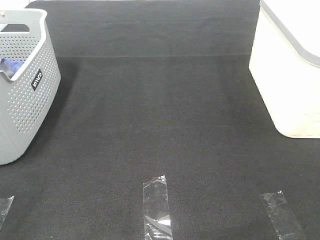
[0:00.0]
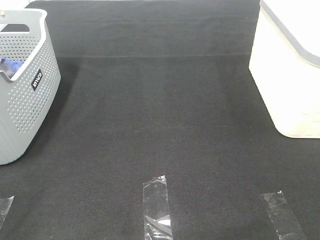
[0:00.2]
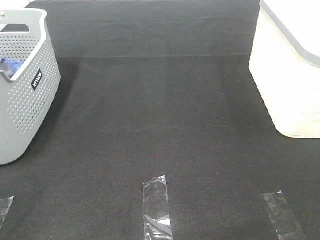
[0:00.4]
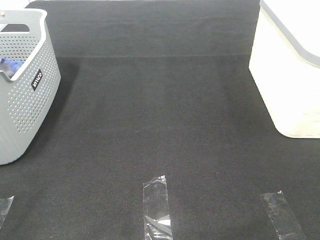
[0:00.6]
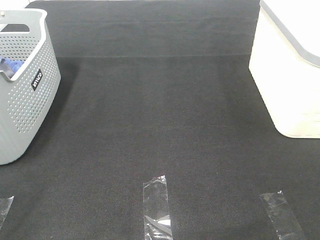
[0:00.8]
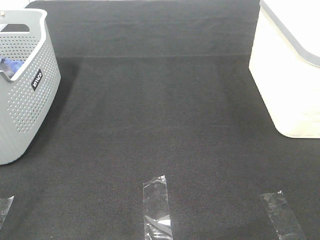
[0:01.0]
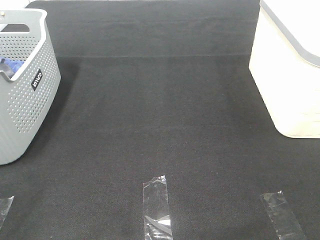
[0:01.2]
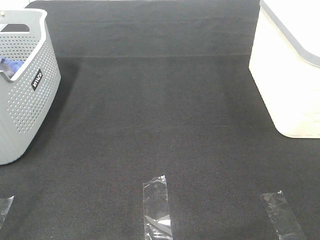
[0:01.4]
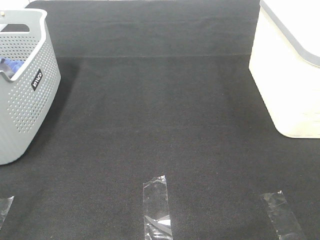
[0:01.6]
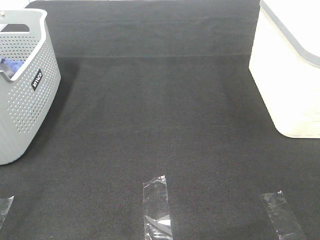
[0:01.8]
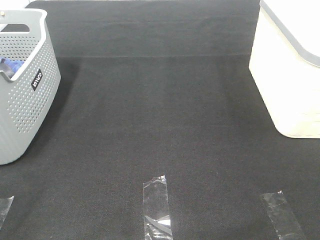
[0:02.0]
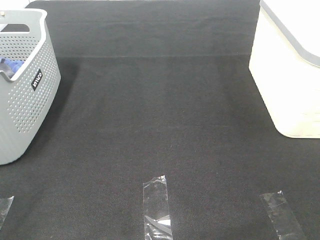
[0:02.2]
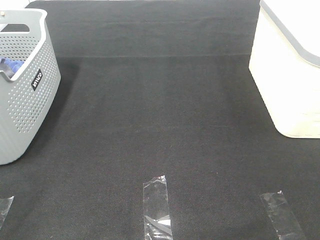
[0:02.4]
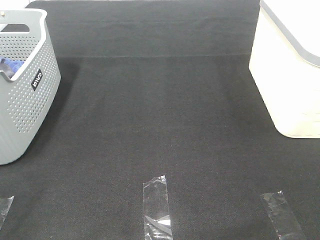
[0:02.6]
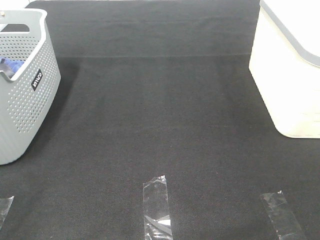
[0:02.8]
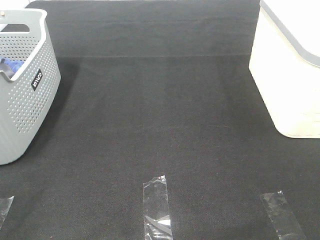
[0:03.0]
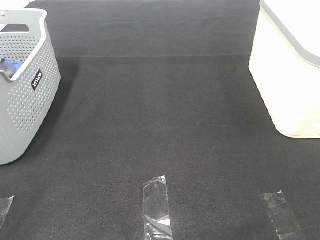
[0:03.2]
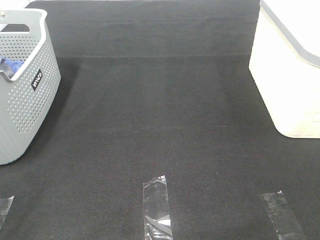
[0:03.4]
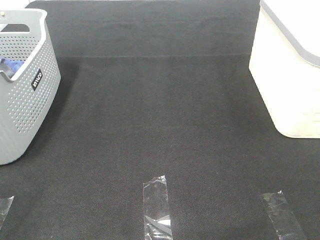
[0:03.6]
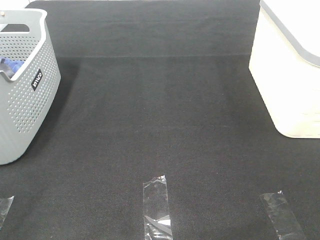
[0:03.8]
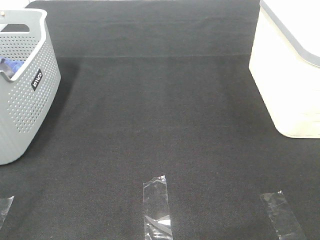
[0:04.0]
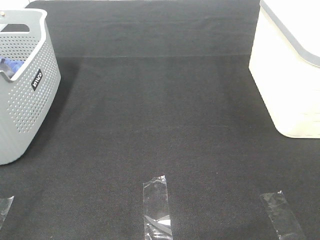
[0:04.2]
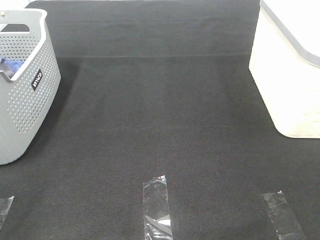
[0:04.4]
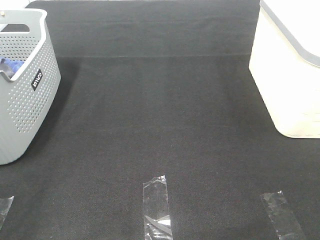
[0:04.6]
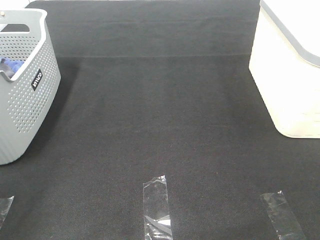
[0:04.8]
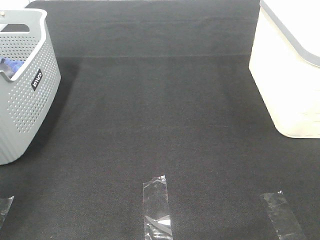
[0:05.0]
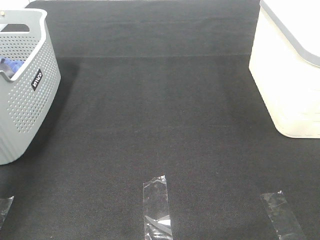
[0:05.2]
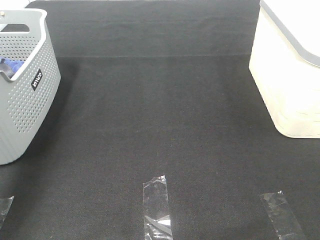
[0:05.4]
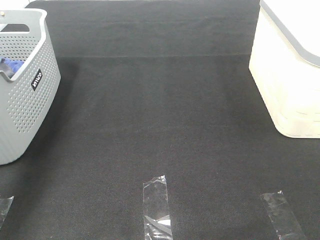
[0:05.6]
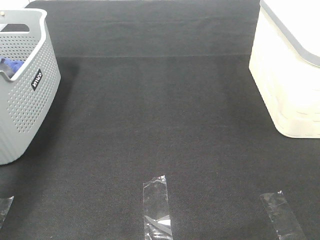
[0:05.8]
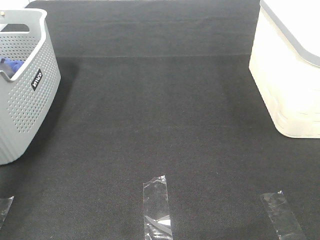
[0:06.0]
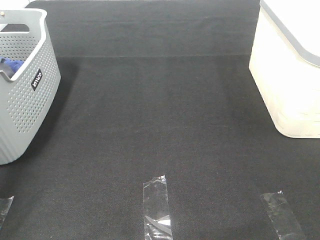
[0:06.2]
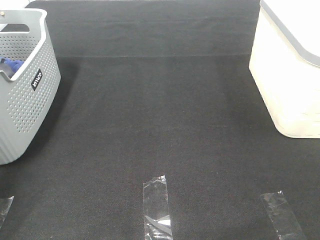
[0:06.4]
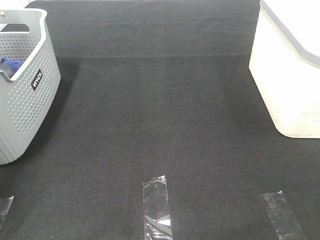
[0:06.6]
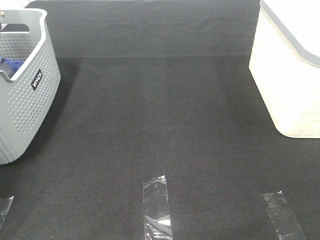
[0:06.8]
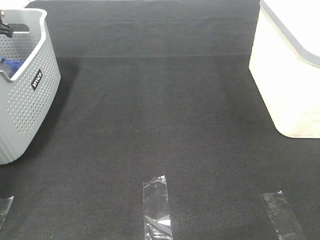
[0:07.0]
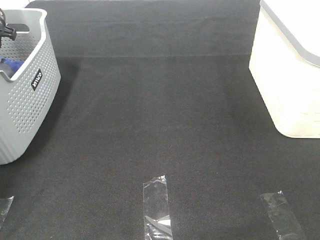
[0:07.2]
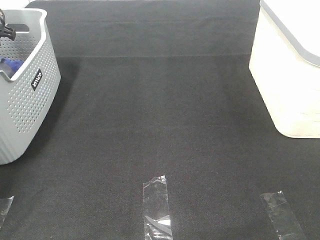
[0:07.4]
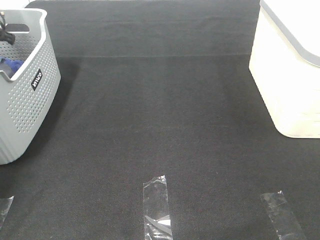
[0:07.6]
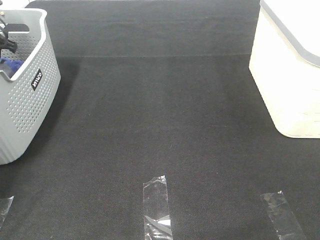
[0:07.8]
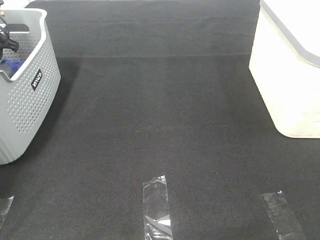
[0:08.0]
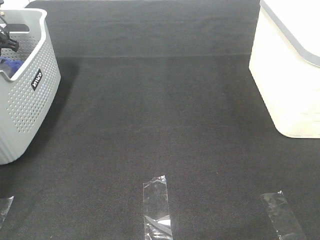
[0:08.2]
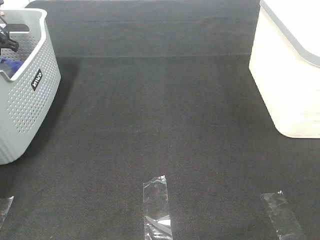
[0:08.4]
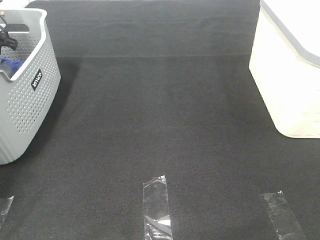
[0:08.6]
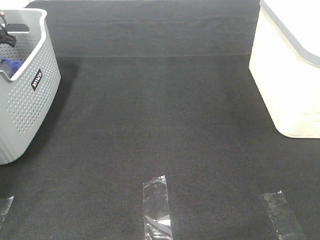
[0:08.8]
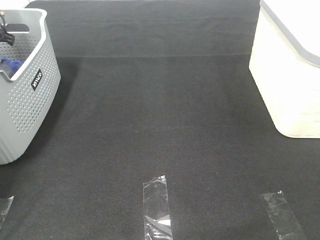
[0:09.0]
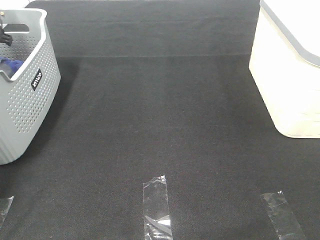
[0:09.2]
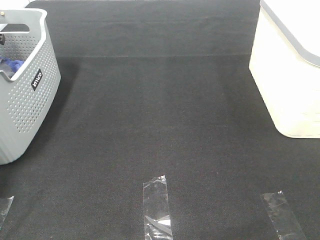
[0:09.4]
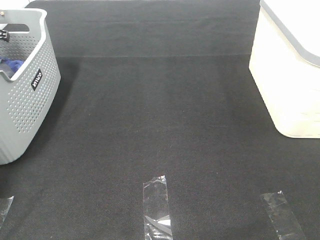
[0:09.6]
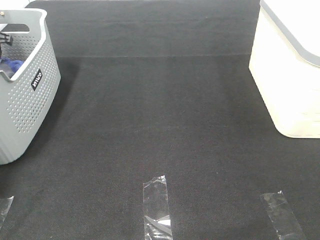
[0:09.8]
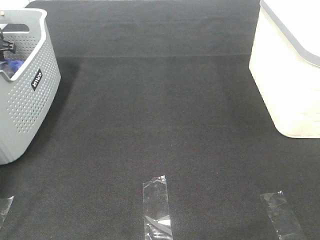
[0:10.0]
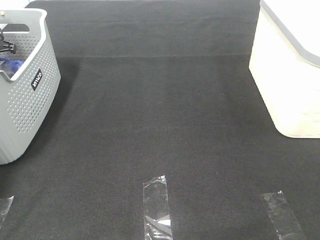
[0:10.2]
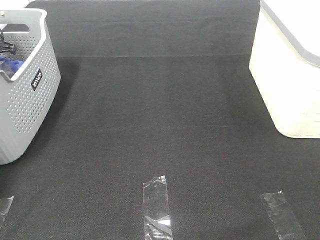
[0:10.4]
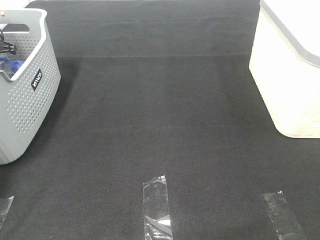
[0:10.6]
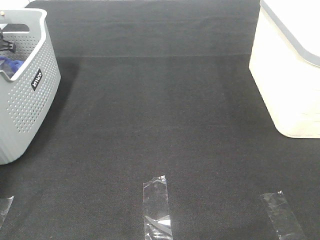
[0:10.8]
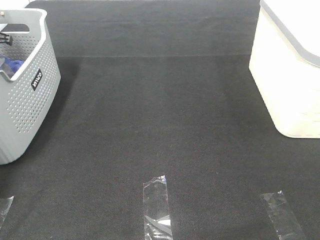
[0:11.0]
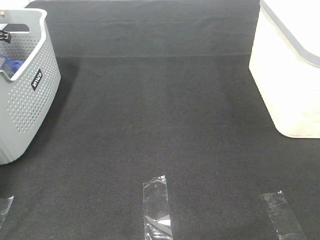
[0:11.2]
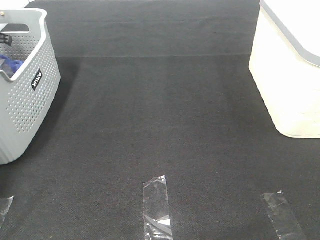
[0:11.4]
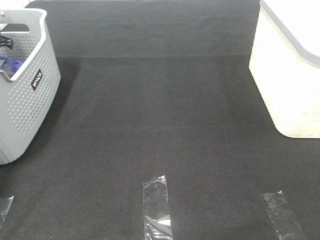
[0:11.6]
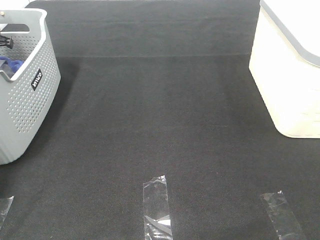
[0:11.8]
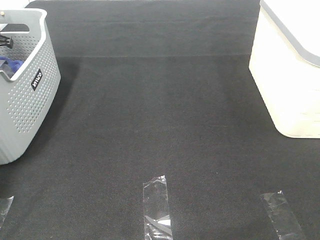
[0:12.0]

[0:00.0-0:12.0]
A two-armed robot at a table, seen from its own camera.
Task of the whole recording: Remove the towel and place it.
0:00.0 to 0:03.0: The two grippers keep their place.
0:04.4 to 0:06.0: The left gripper heads forward, covering roughly 40 cm.
0:06.0 to 0:07.6: The left gripper heads forward and downward, covering approximately 15 cm.
0:07.6 to 0:09.0: The two grippers keep their place.
0:09.0 to 0:10.4: The left gripper closes up.

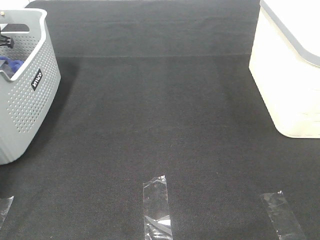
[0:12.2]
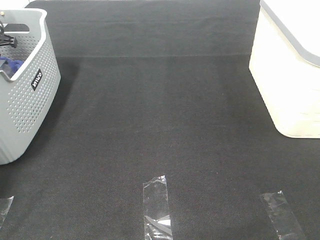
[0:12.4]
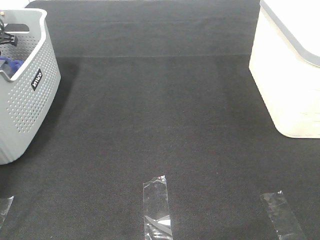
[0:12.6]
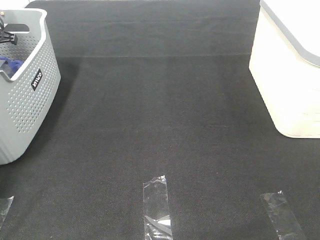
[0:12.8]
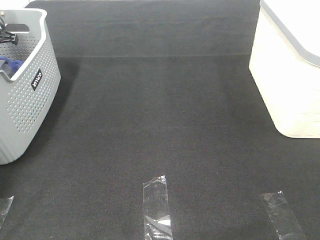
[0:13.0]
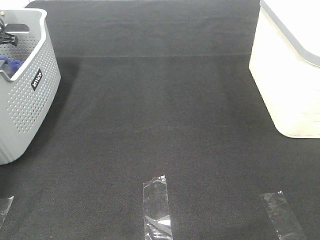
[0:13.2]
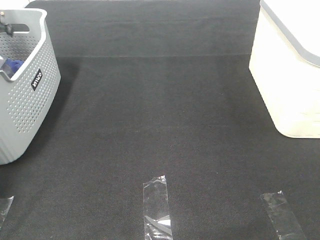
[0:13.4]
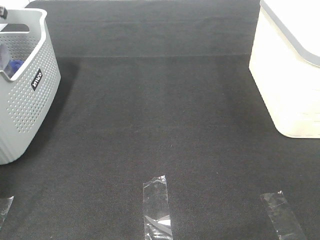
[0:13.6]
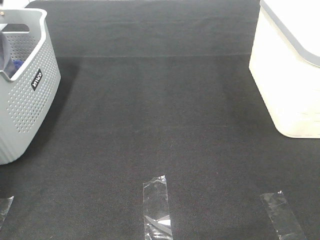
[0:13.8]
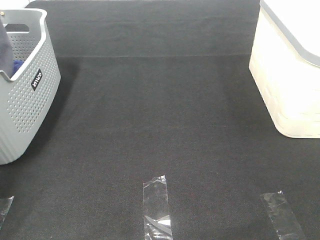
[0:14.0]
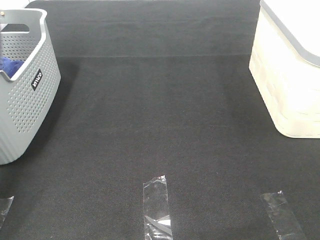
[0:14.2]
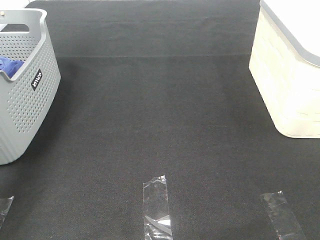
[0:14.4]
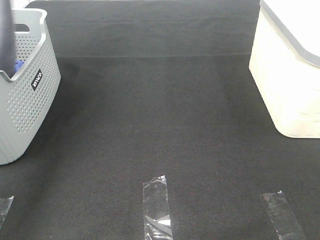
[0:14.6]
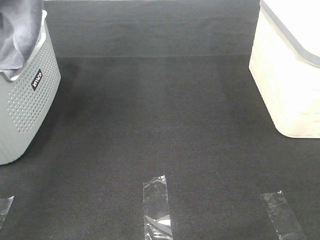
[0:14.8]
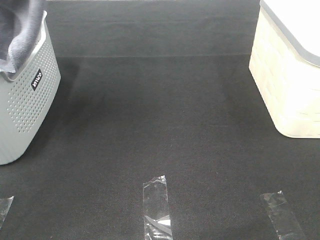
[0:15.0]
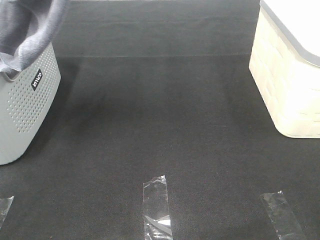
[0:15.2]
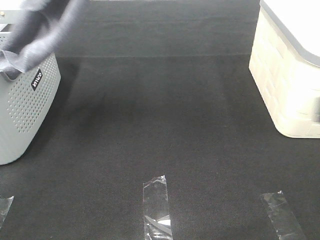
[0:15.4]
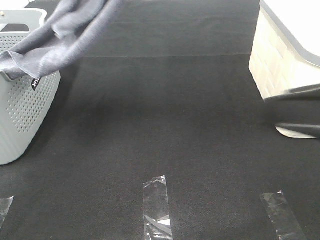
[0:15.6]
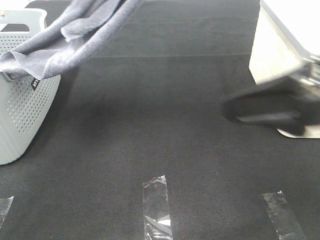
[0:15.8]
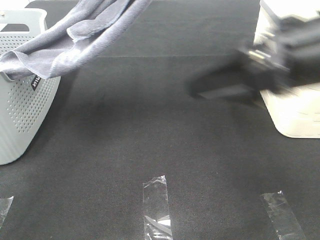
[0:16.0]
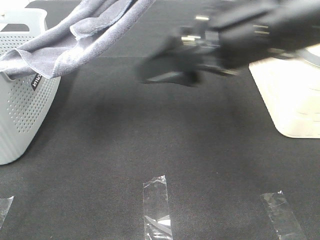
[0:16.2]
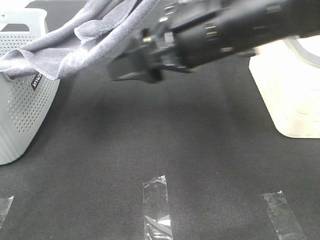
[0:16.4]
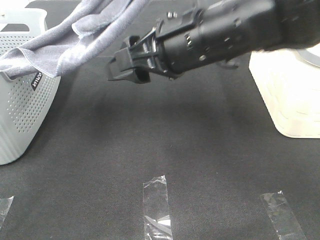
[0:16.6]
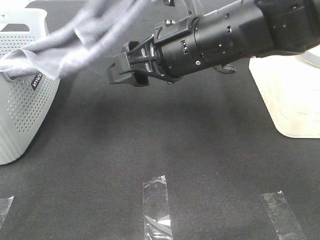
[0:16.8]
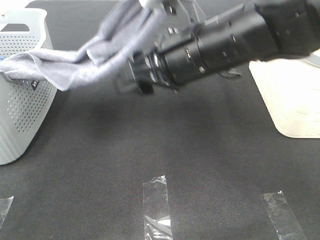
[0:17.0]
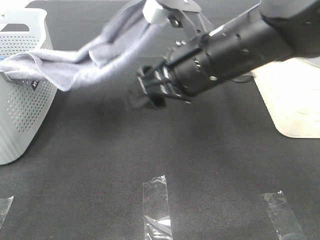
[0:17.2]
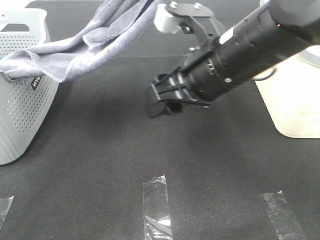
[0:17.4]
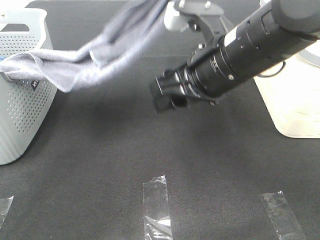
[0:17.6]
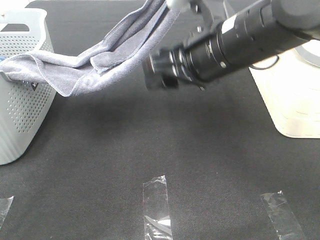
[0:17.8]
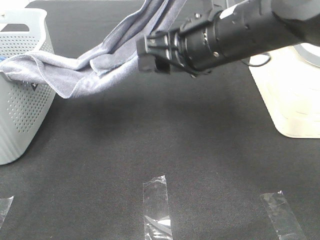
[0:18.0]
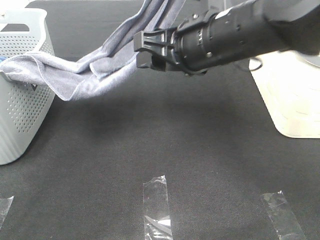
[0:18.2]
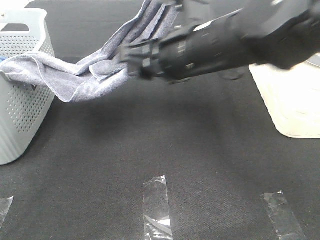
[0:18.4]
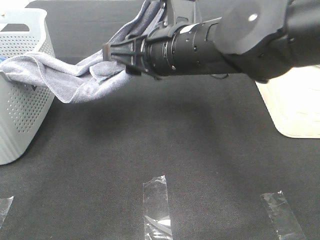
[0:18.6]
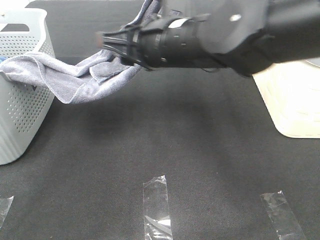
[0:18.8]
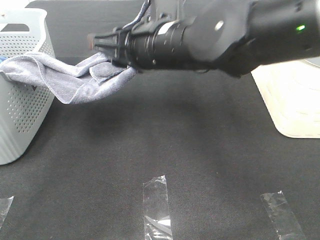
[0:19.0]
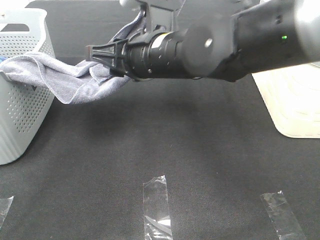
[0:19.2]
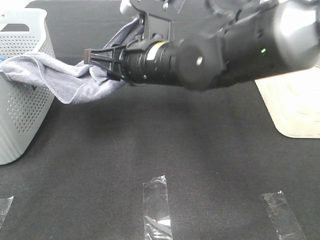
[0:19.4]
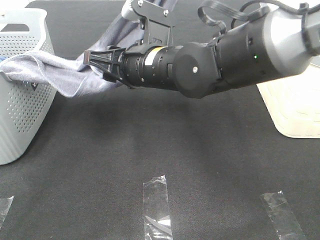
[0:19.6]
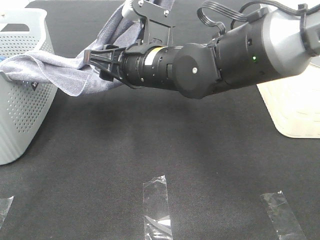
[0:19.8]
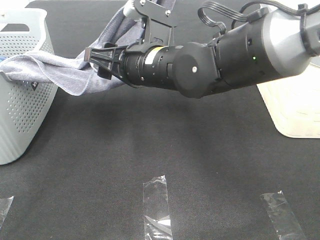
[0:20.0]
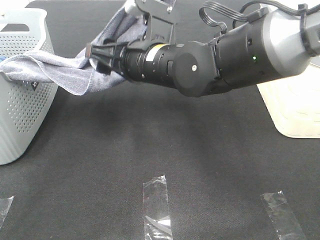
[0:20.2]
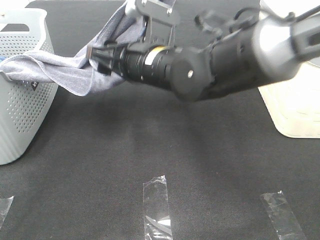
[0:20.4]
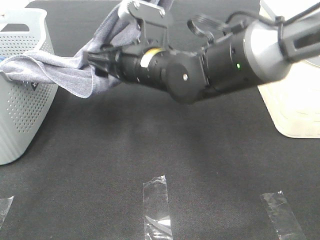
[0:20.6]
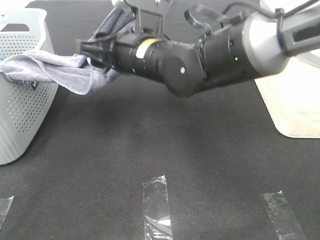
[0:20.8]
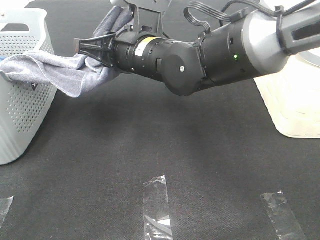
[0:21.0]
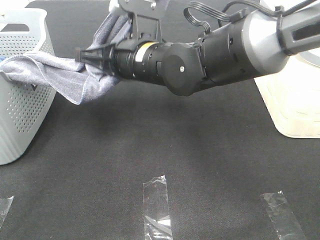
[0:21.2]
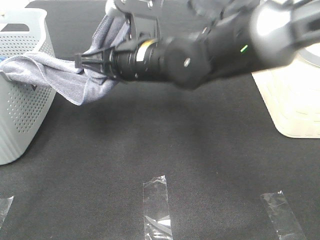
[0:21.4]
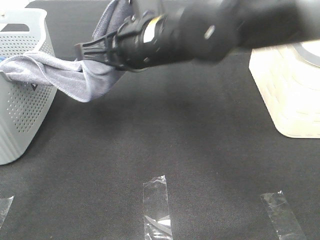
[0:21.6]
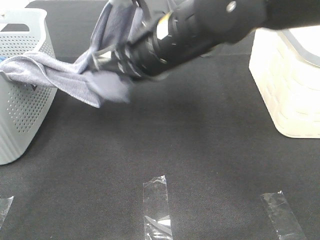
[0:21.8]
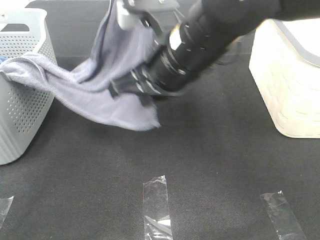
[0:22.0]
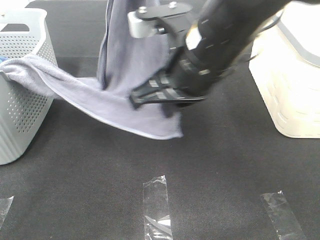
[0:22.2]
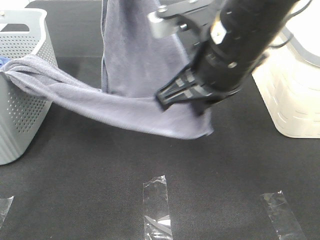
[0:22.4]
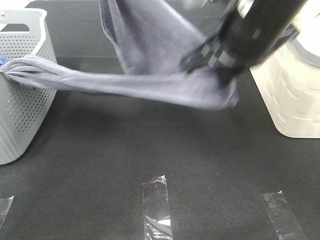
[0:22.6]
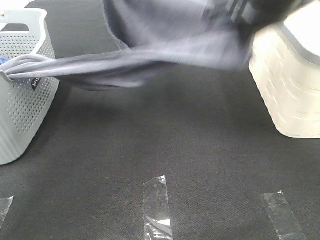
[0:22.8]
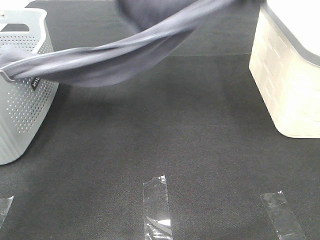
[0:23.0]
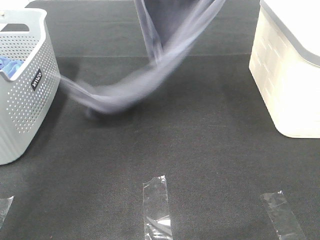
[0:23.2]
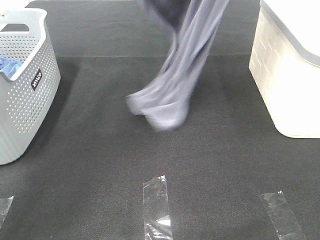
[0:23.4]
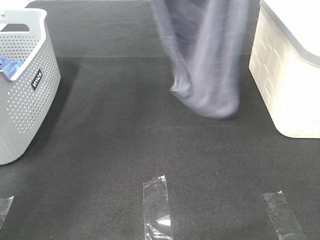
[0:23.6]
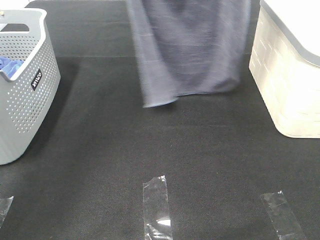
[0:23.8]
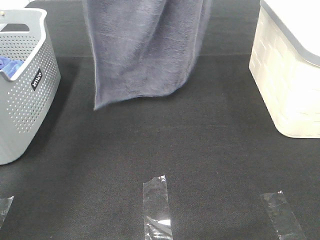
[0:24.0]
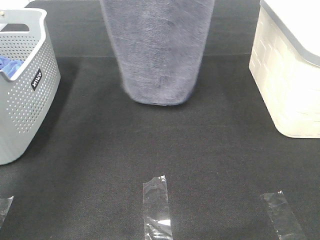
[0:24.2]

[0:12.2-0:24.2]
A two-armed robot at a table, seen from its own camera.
Task of the whole recording: Remove the towel and place it.
Step, 0:14.2 to 0:18.8: Right hand: grab a corner of the grey towel and straighten it.
Step, 0:19.0 to 0:23.8: Left hand: spread the grey towel flat on the table.
Step, 0:19.0 to 0:23.8: Right hand: spread the grey towel flat on the table.
0:12.2 to 0:13.8: The left gripper is displaced upward by some 10 cm, and closes up.
0:13.8 to 0:15.2: The right gripper travels forward by roughly 5 cm. Meanwhile the left gripper goes roughly 40 cm to the right, upward and backward.
0:15.2 to 0:16.6: The left gripper goes approximately 15 cm to the right and downward, while the right gripper travels to the left and forward by some 30 cm.
0:16.6 to 0:18.2: The left gripper shifts by some 5 cm.
0:18.2 to 0:19.8: The right gripper goes roughly 10 cm to the left and downward.
0:19.8 to 0:21.2: The right gripper closes up.
0:21.2 to 0:22.6: The left gripper goes roughly 5 cm to the left; the right gripper moves to the right and upward, about 15 cm.
0:22.6 to 0:24.2: The left gripper is displaced upward, to the left and forward by about 15 cm, while the right gripper goes some 25 cm upward and forward.
